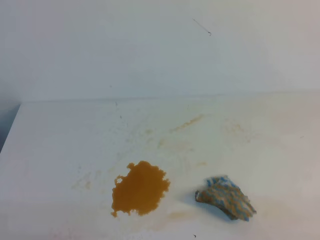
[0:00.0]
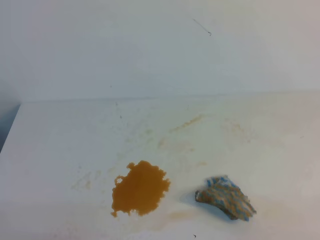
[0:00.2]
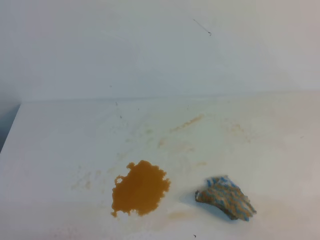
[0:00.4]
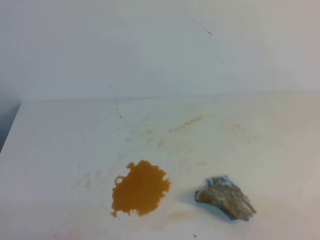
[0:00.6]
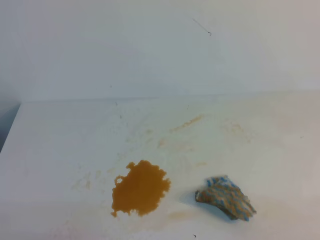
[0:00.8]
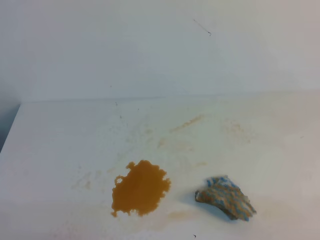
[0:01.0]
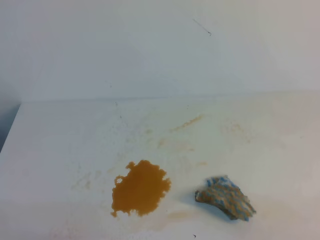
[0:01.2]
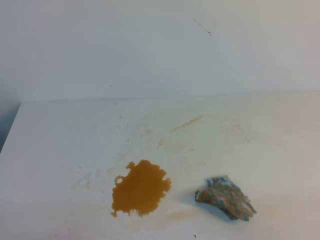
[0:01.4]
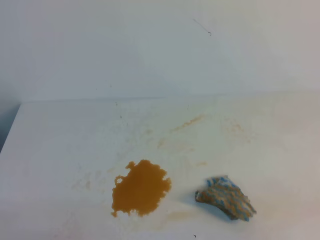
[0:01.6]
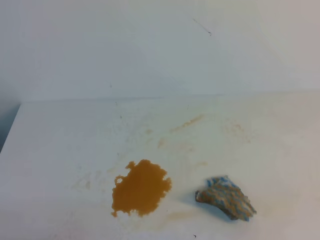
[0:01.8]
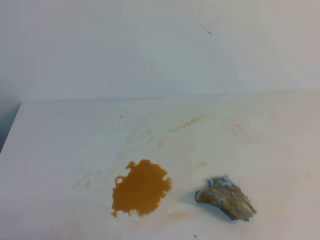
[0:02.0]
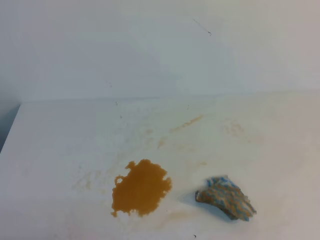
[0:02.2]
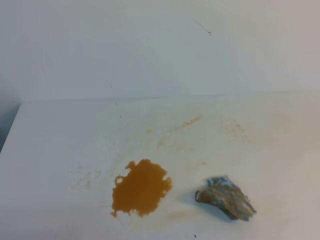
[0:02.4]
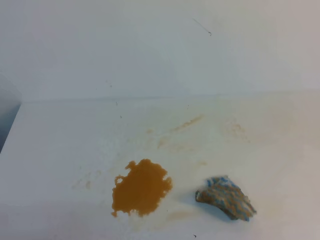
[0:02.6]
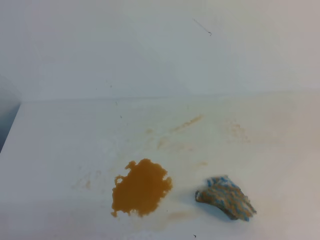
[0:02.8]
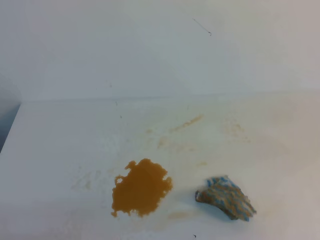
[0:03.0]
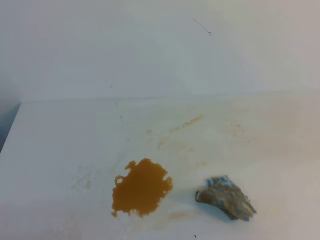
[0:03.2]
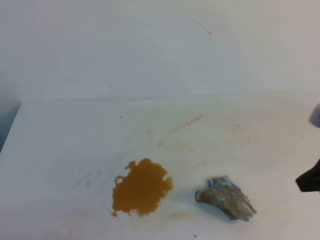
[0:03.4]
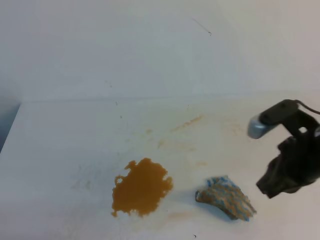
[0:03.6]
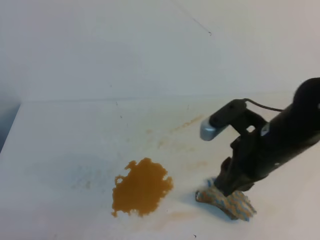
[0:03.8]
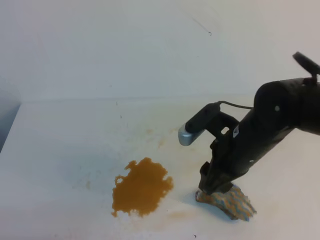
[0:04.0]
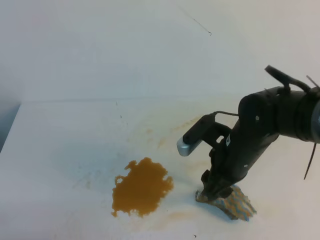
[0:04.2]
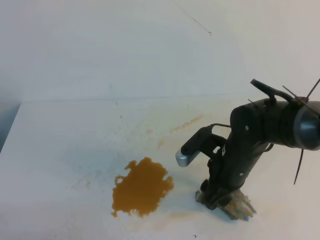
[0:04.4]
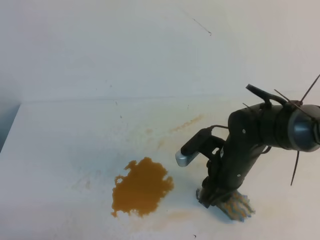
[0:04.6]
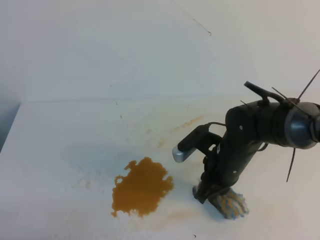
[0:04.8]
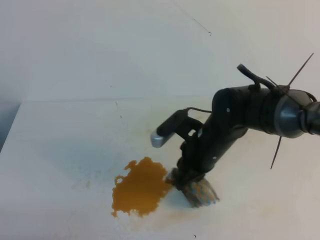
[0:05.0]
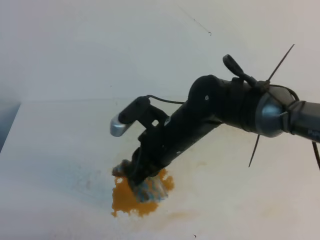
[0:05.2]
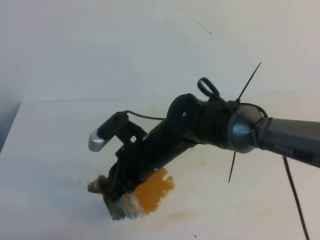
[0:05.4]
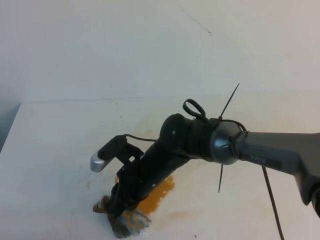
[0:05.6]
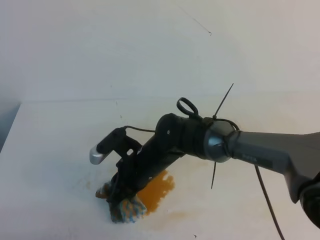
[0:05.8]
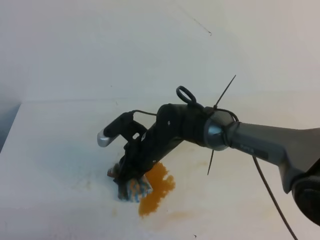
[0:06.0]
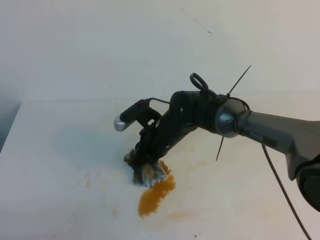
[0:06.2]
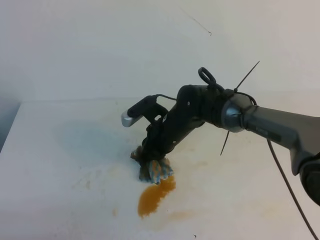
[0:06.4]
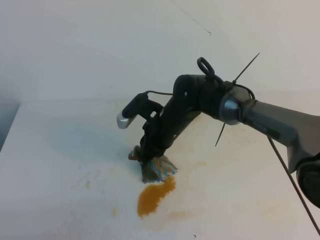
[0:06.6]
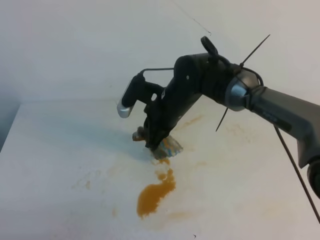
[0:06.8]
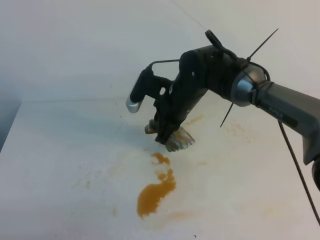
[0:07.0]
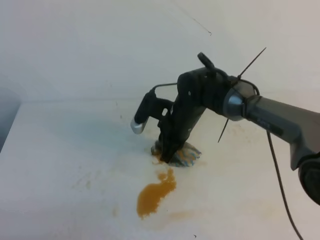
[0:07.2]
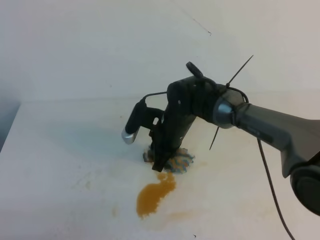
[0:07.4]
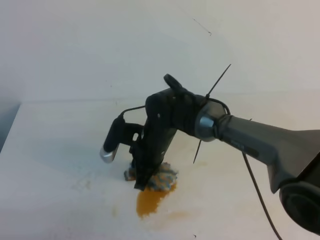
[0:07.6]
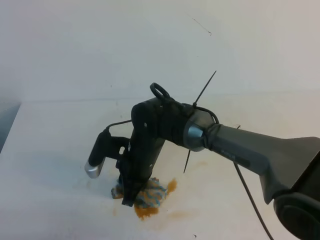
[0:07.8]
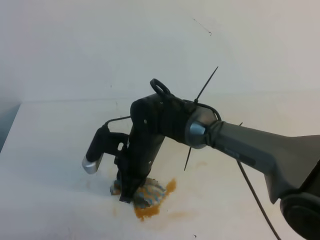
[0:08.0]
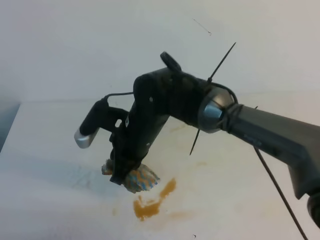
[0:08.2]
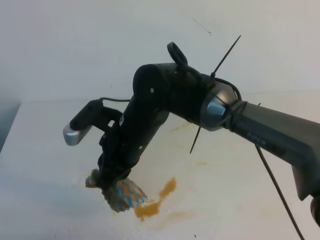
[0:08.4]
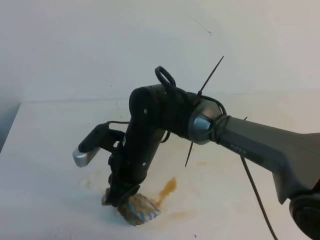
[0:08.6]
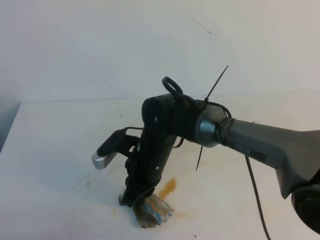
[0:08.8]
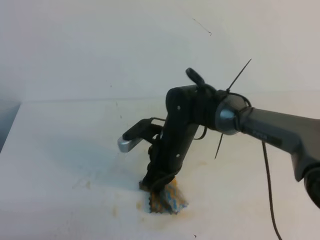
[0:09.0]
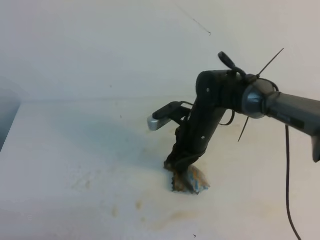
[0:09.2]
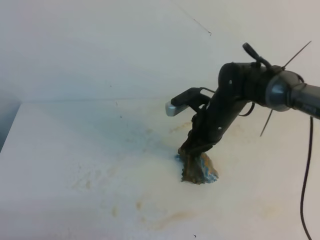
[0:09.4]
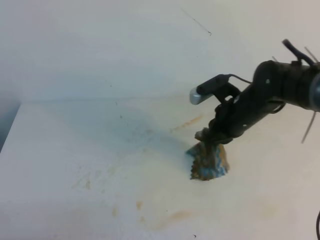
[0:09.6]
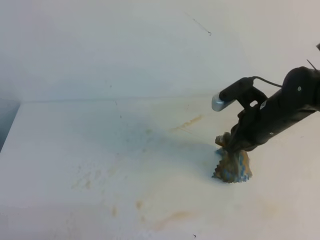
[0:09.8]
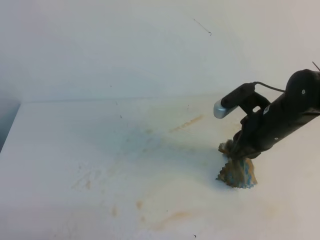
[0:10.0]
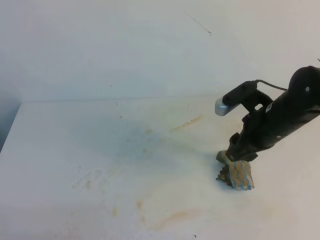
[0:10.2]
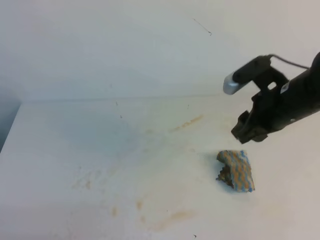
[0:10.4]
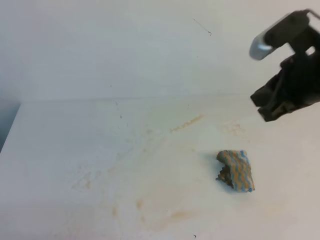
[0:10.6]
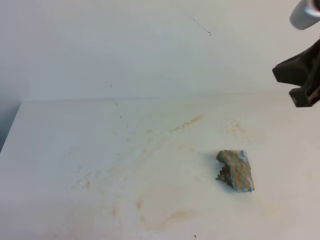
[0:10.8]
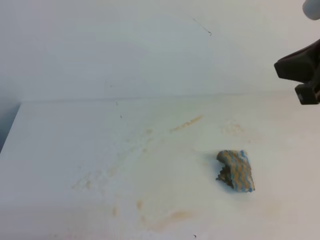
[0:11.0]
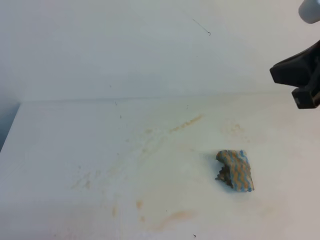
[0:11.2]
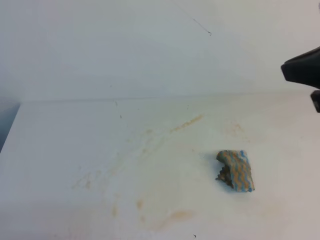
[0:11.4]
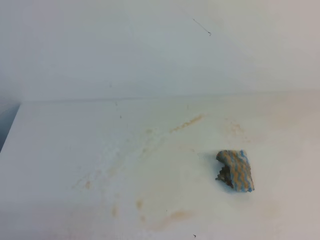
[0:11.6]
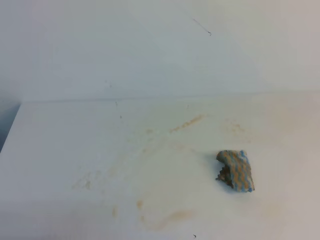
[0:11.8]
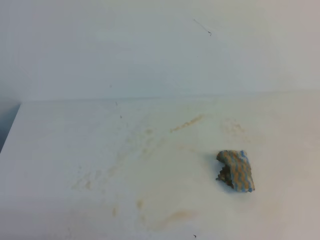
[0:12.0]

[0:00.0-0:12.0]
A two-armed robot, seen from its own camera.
0:03.0 to 0:04.4: The right gripper shifts approximately 30 cm to the left, forward and downward, and opens up.
0:04.4 to 0:06.0: The right gripper goes approximately 15 cm to the left, and closes.
0:09.0 to 0:10.4: The right gripper goes about 20 cm to the right and upward, and opens.
0:10.4 to 0:12.0: The right gripper travels backward and to the right by approximately 30 cm, and closes.

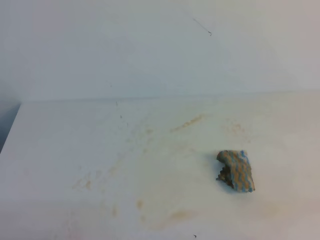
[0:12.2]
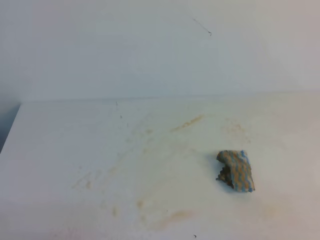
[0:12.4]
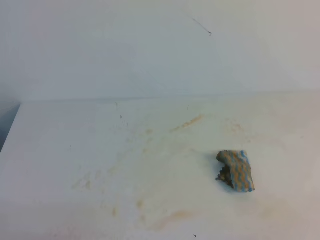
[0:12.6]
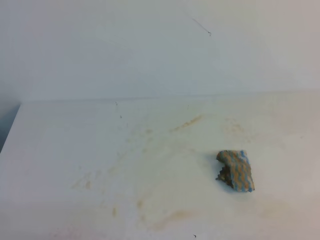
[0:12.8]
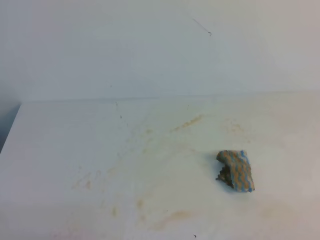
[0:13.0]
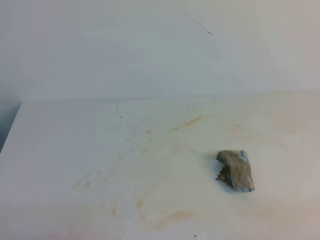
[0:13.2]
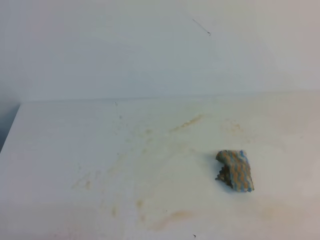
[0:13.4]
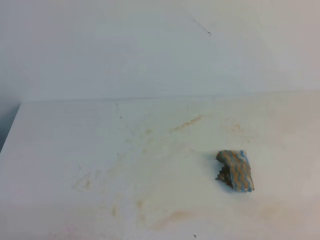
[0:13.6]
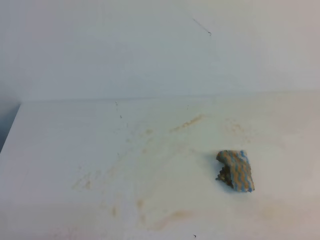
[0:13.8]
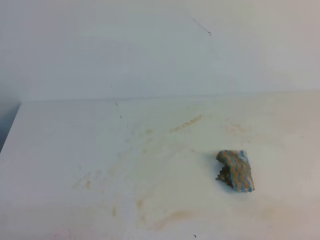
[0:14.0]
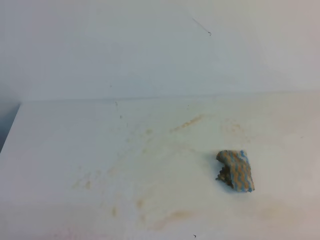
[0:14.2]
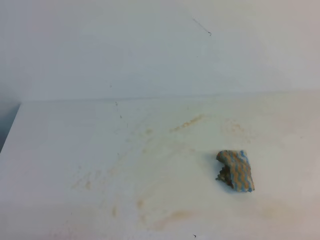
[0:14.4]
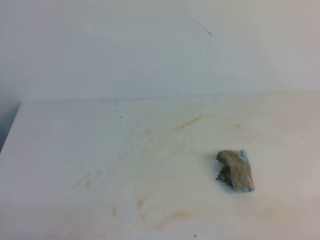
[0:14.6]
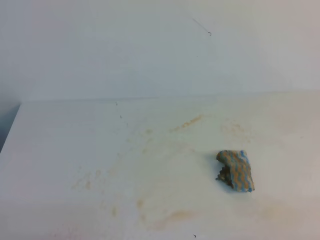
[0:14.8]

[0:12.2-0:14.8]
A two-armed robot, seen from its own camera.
0:13.4 to 0:14.8: Both grippers stay put.

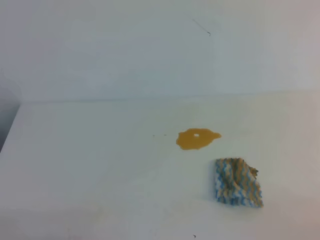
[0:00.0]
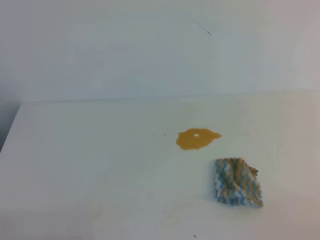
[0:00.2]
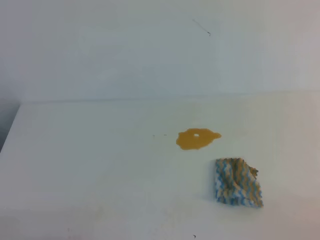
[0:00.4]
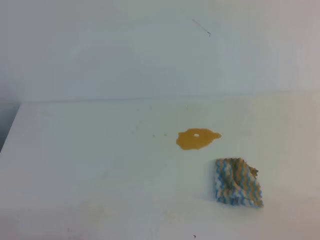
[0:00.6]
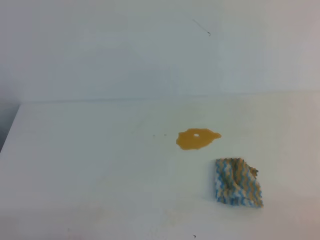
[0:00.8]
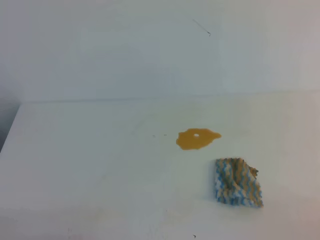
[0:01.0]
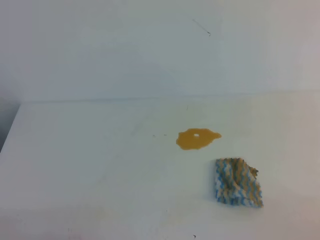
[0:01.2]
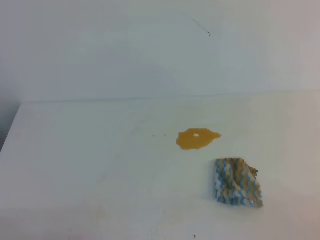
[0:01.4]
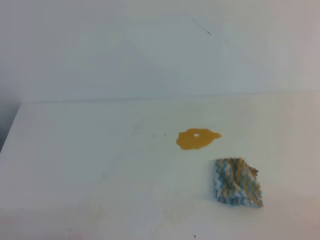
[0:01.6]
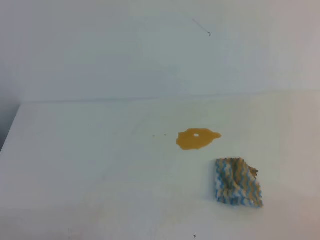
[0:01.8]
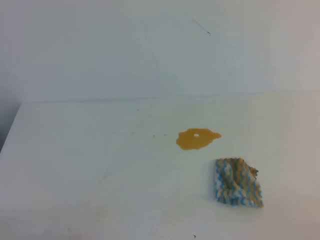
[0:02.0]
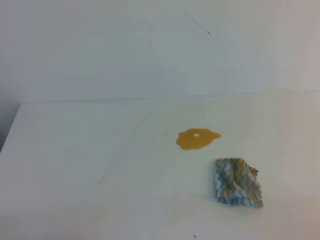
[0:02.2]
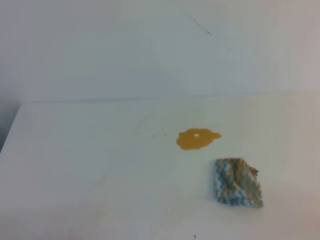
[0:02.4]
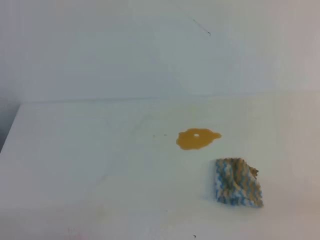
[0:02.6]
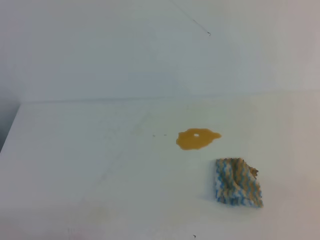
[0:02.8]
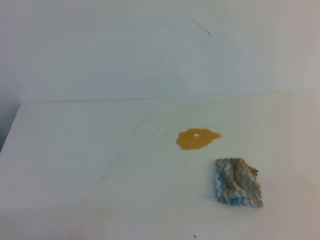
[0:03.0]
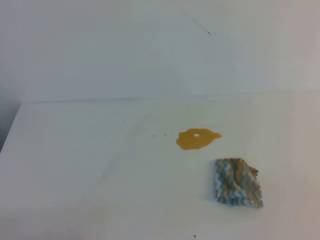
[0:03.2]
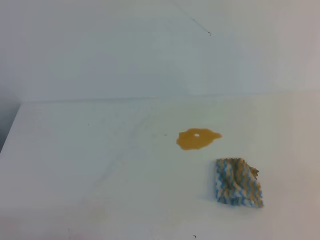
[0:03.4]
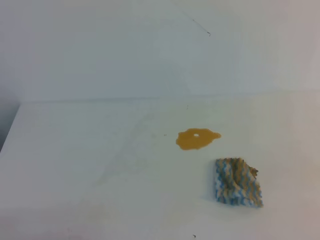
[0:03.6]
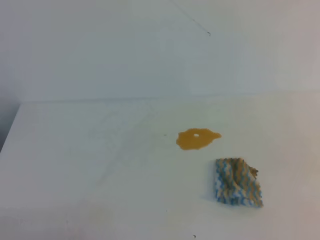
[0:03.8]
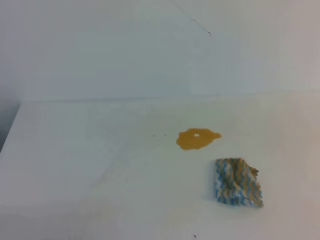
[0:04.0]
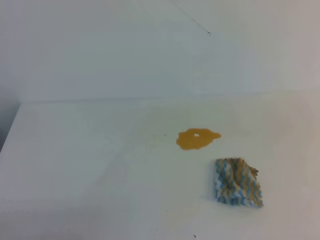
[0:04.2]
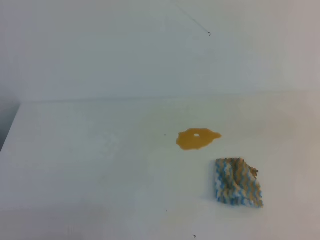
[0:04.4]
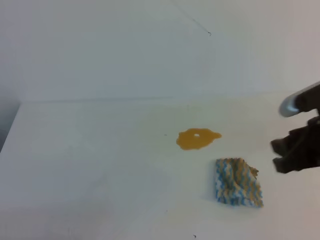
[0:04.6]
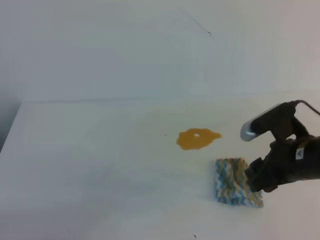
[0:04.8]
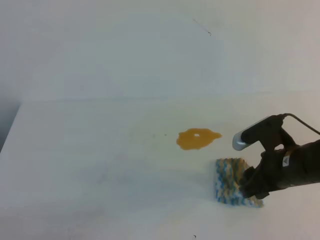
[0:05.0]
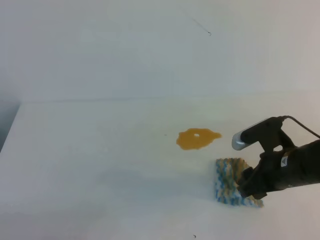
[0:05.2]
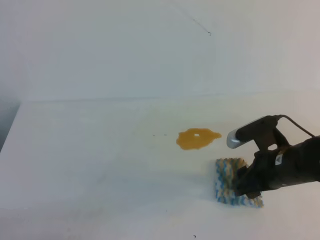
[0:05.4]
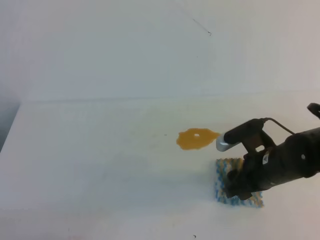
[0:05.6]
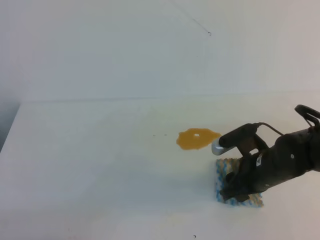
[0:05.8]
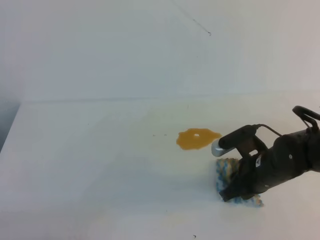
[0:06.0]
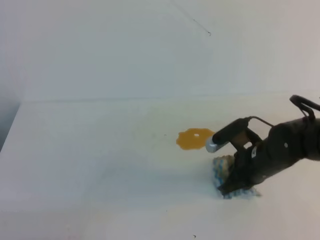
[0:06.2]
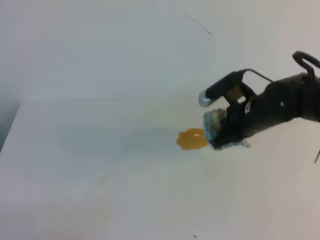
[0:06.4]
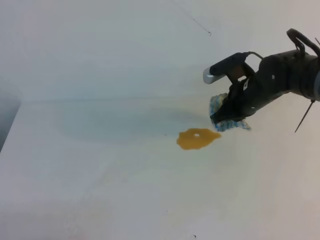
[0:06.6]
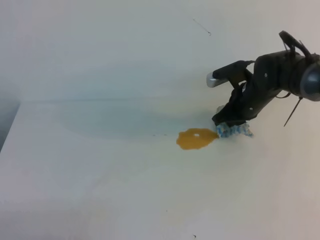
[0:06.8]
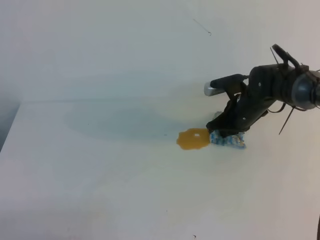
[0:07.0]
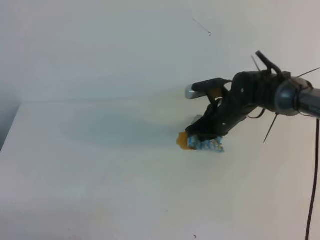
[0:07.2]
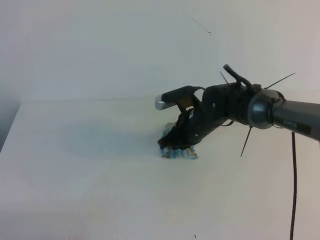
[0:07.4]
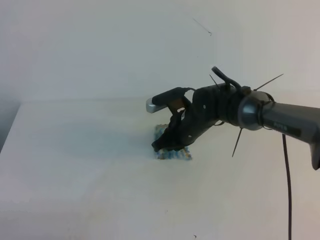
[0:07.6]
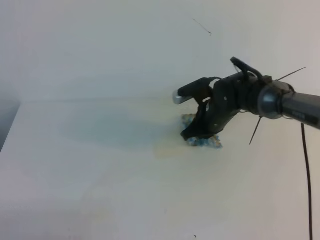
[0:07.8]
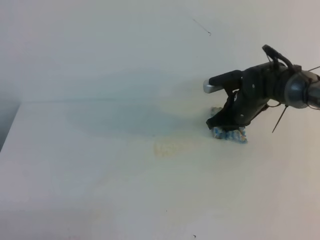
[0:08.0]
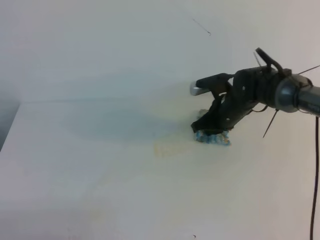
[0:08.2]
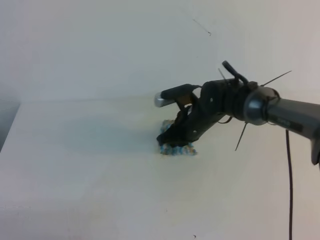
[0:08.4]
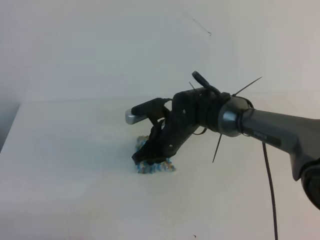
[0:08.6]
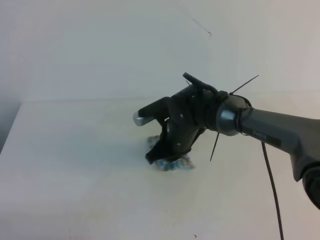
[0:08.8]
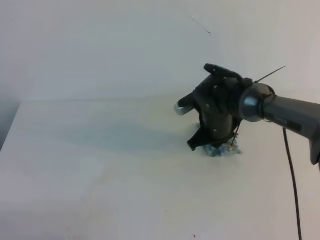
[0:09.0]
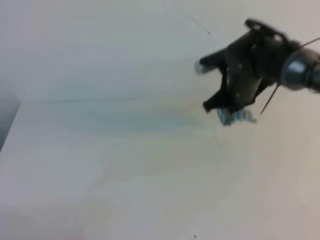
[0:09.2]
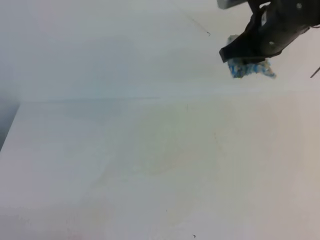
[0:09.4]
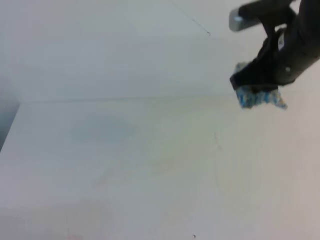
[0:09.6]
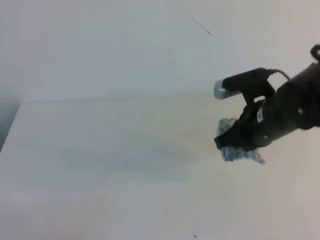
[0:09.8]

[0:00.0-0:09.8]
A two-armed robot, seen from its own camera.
0:00.0 to 0:01.4: Both grippers stay put.
0:04.2 to 0:05.6: The right gripper moves downward, to the left and forward, roughly 25 cm, and opens up.
0:05.6 to 0:07.0: The right gripper goes roughly 15 cm forward, and closes up.
0:07.0 to 0:08.4: The right gripper goes left and right, about 10 cm each way, reversing 2 times.
0:08.4 to 0:09.8: The right gripper travels upward, to the right and backward by about 20 cm.
